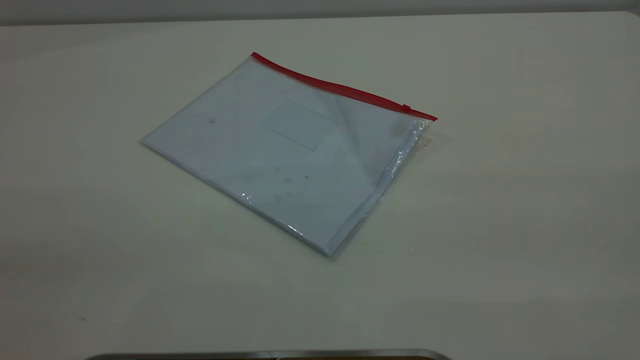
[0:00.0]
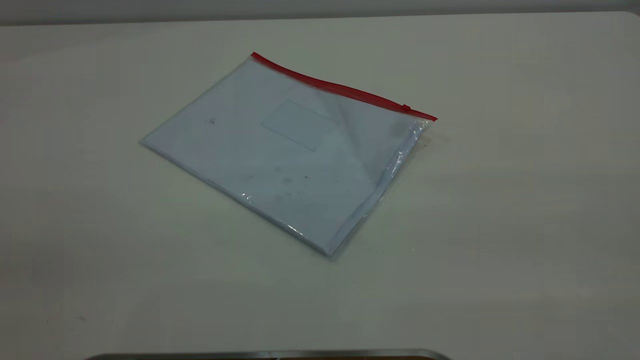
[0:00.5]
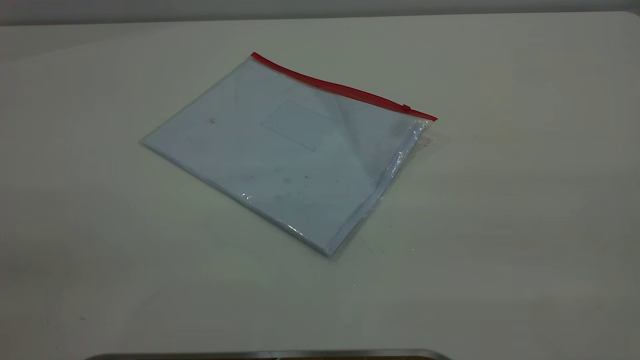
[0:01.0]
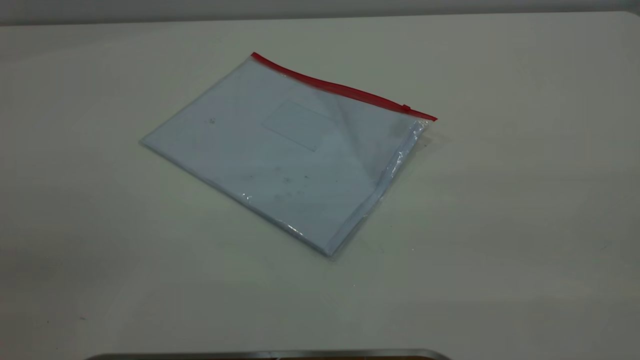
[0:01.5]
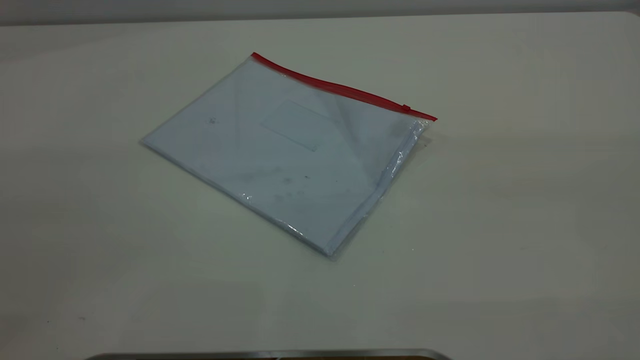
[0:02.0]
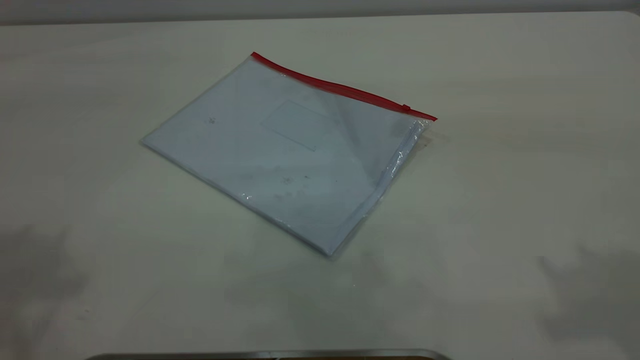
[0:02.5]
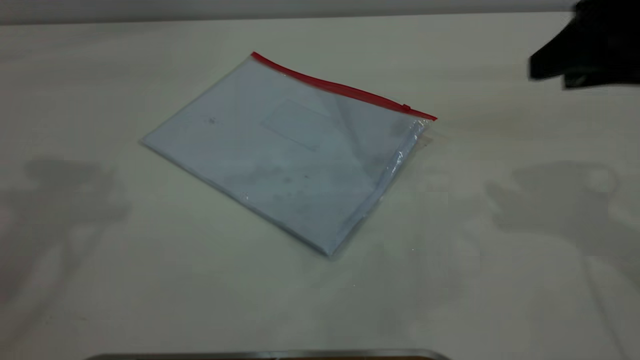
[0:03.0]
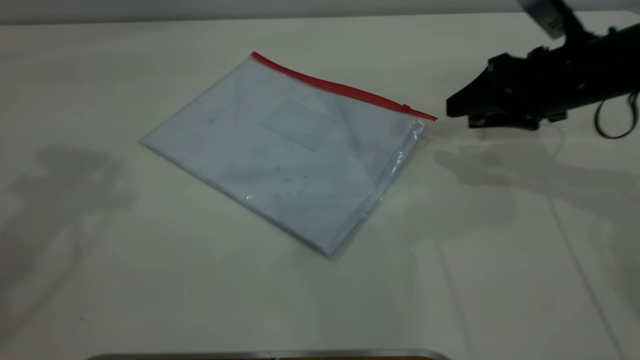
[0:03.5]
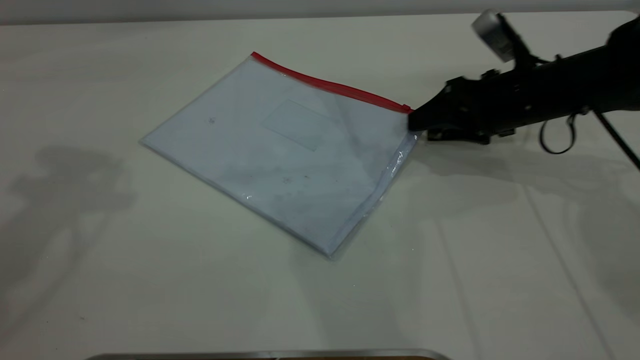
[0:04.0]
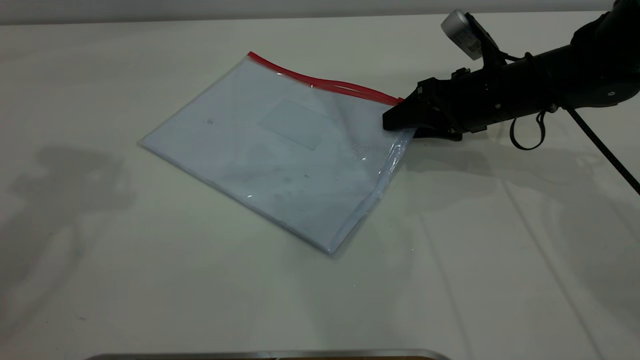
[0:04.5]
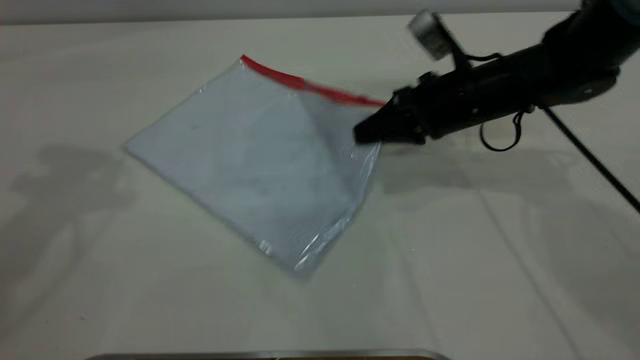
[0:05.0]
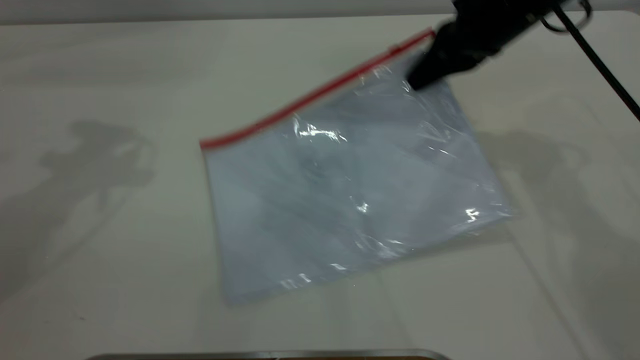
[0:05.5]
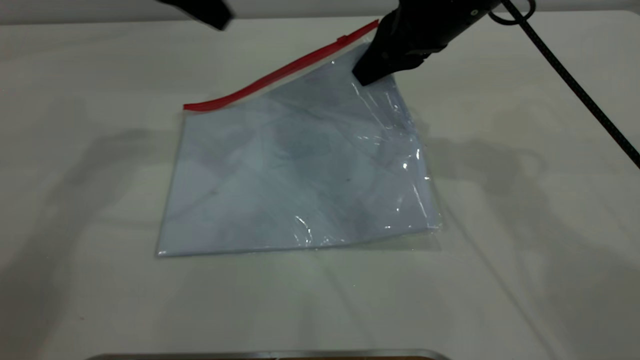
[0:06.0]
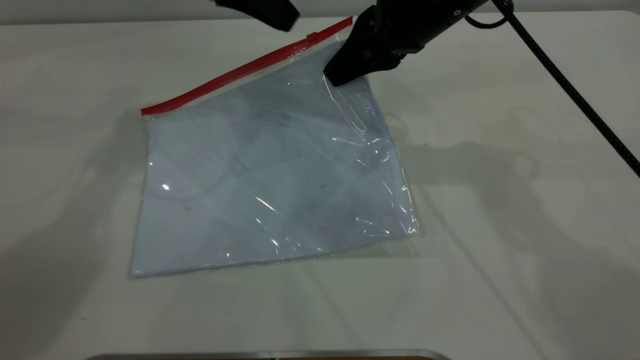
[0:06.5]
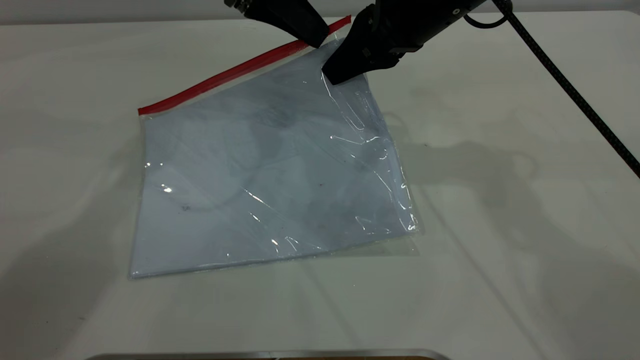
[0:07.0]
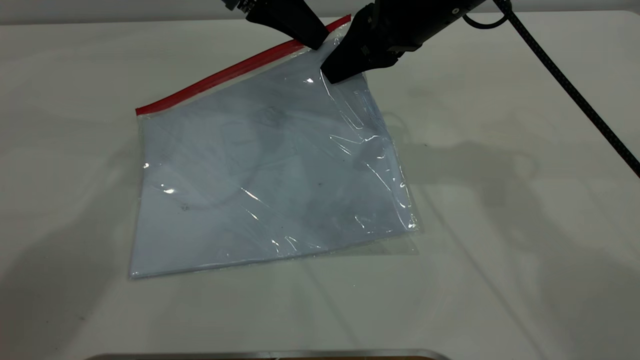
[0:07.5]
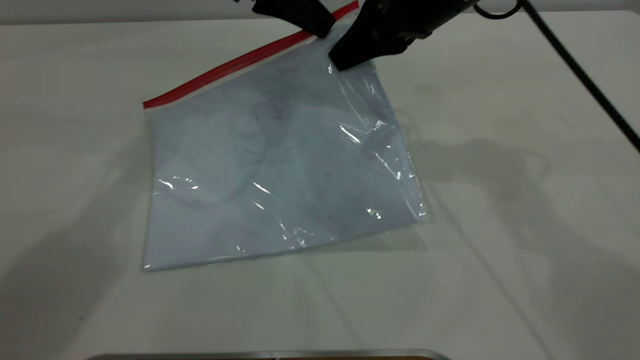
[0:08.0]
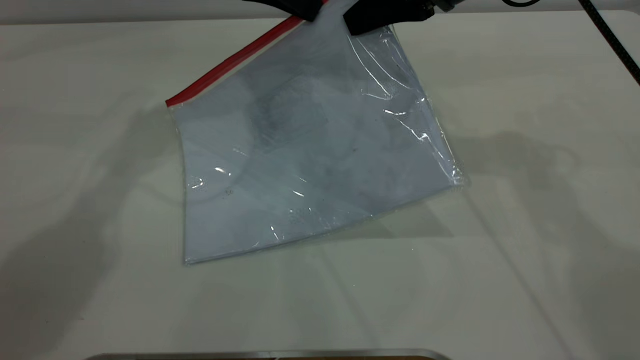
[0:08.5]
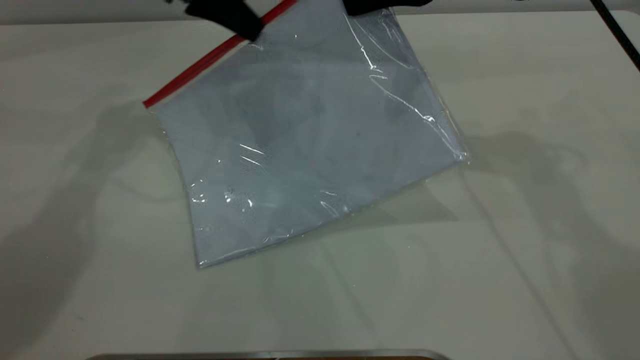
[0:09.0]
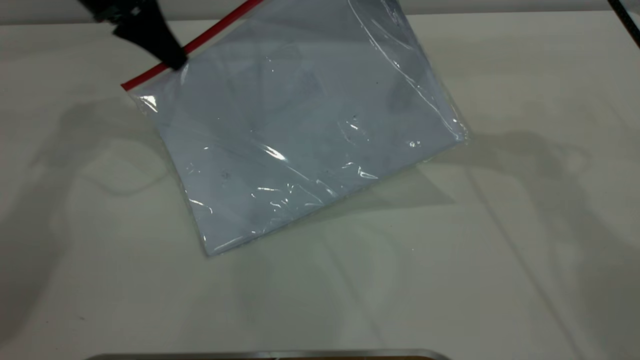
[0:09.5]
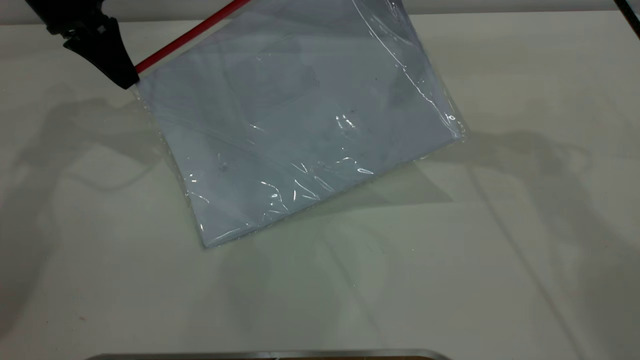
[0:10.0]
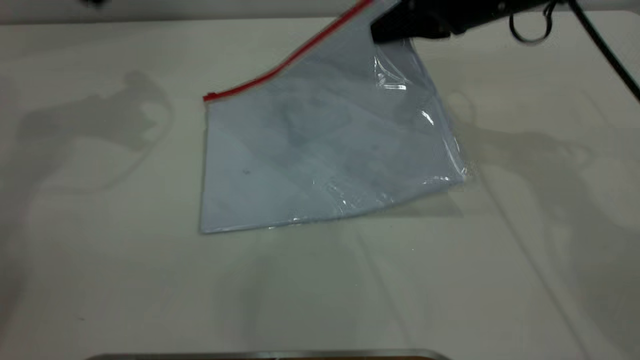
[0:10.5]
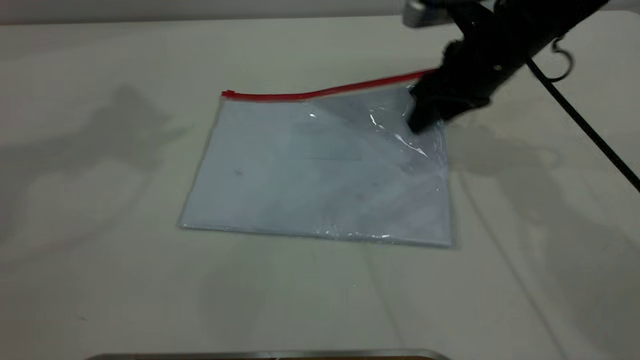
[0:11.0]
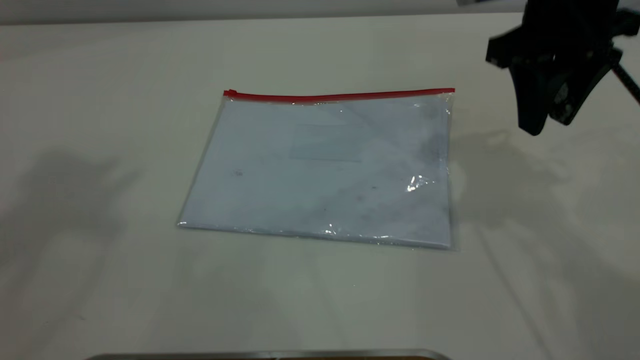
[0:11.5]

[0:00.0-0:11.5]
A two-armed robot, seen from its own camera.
Step, 0:00.0 to 0:05.5: Pick up the transparent plastic bag with the right gripper.
Step, 0:06.0 to 0:10.0: Pulling up the zipper on the transparent plastic bag with the left gripper to close it.
0:02.0 to 0:04.0: The right gripper is displaced forward and downward by approximately 50 cm.
0:04.0 to 0:06.0: The left gripper goes about 20 cm downward, forward and to the right; the right gripper shifts about 15 cm upward and to the left, and closes.
0:06.0 to 0:07.5: The left gripper travels to the right by about 5 cm, and closes its fingers.
0:07.5 to 0:09.5: The left gripper shifts roughly 15 cm to the left. Meanwhile the right gripper ends up roughly 5 cm from where it was.
0:09.5 to 0:11.5: The left gripper shifts about 40 cm upward and backward, and opens. The right gripper heads backward, covering about 5 cm, travels downward and back again, some 10 cm each way, and opens.

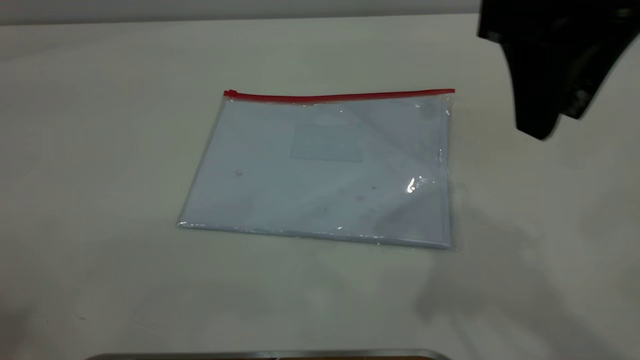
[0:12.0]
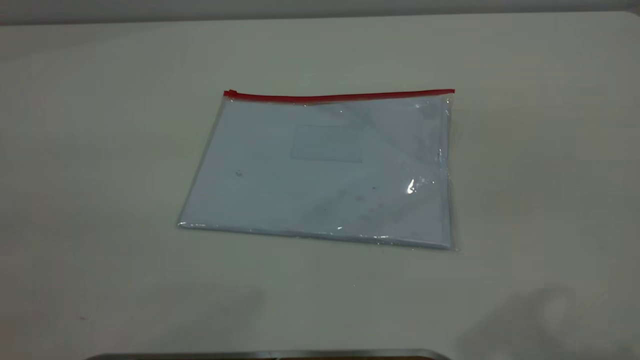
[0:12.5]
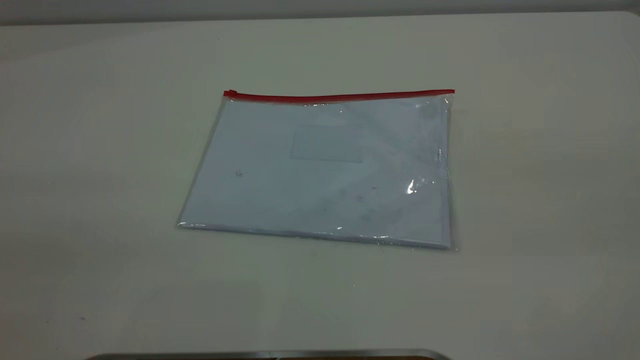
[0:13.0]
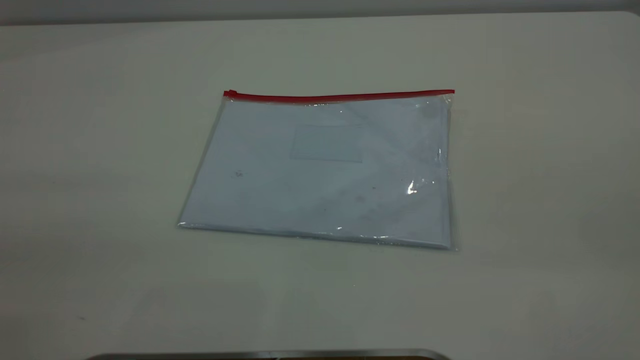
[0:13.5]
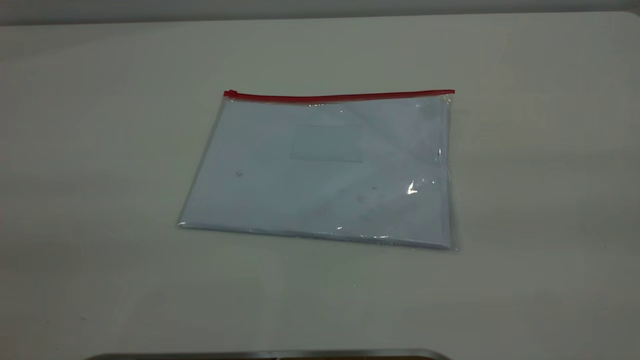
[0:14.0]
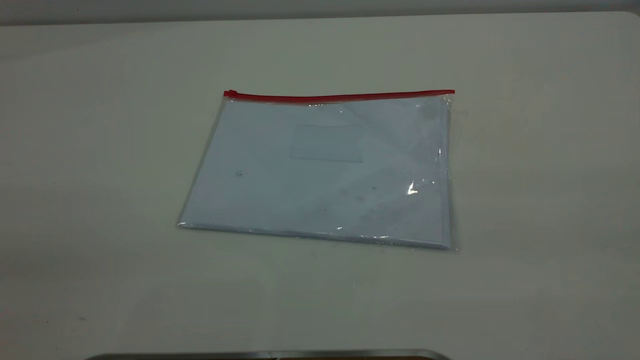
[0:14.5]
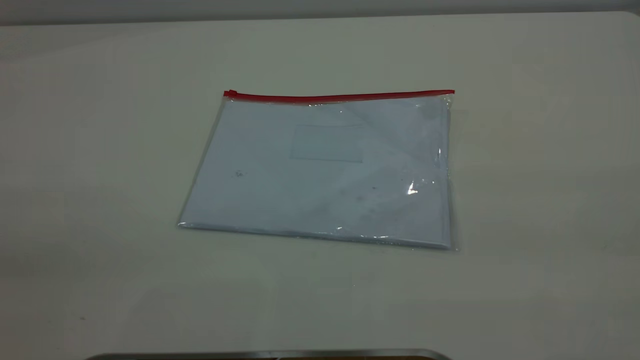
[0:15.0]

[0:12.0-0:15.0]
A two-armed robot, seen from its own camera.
0:12.0 to 0:13.5: The right gripper moves backward and to the right, some 25 cm.

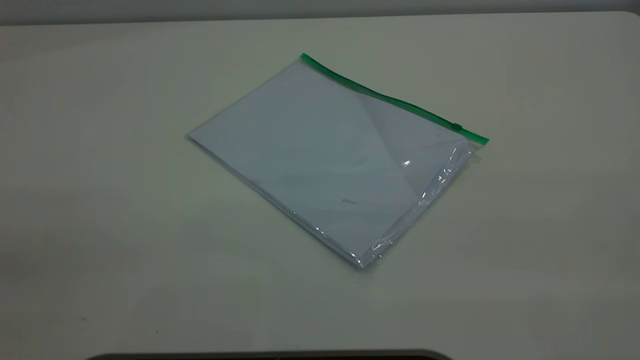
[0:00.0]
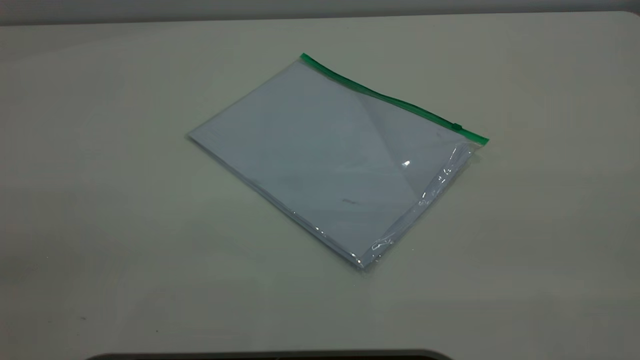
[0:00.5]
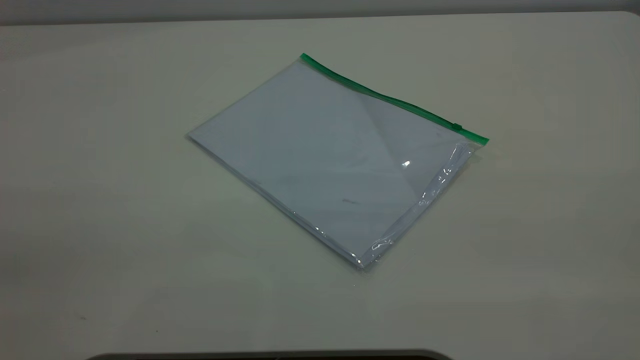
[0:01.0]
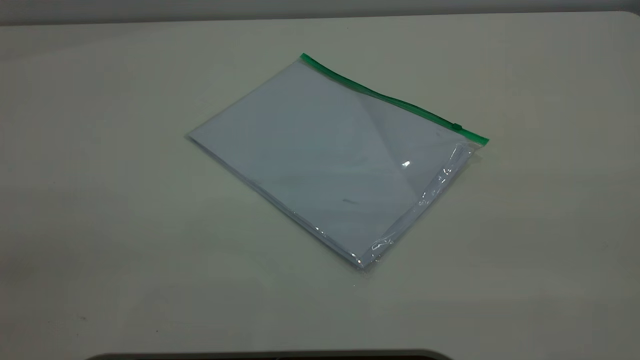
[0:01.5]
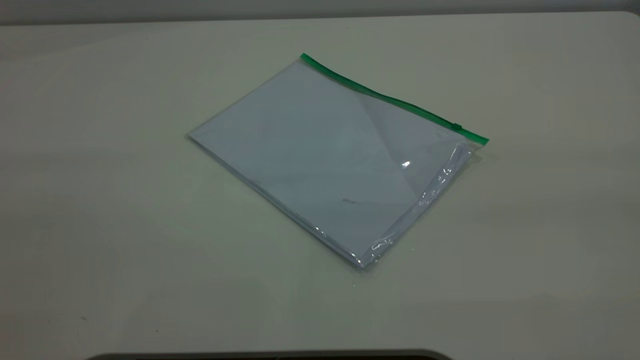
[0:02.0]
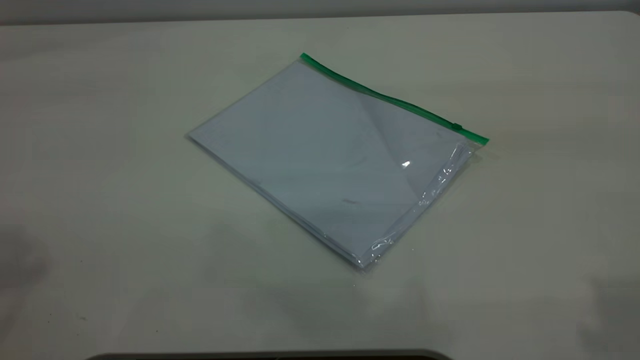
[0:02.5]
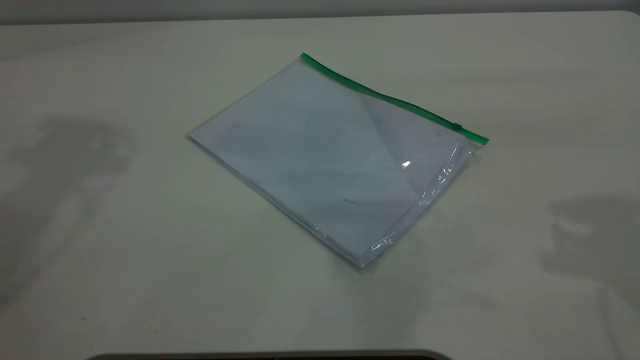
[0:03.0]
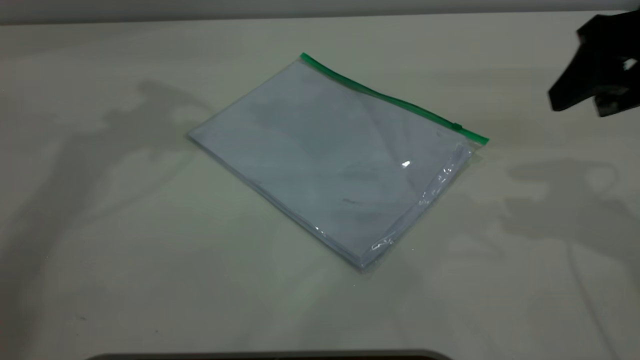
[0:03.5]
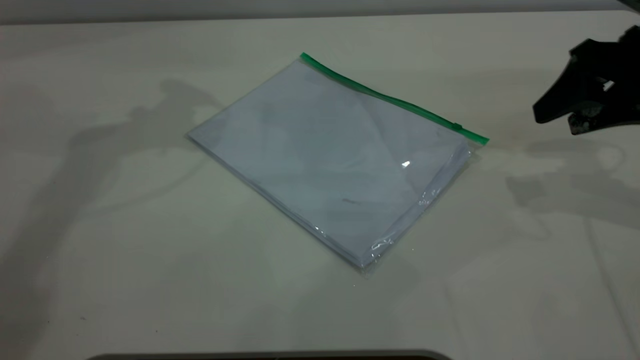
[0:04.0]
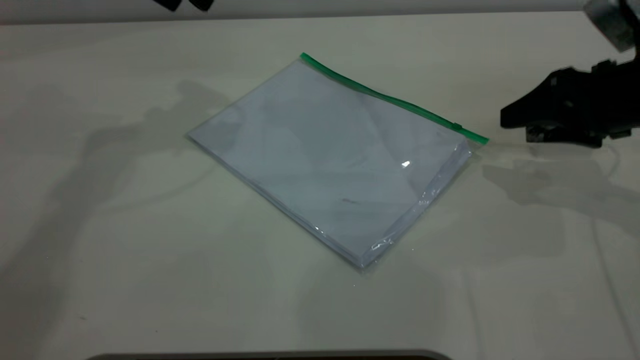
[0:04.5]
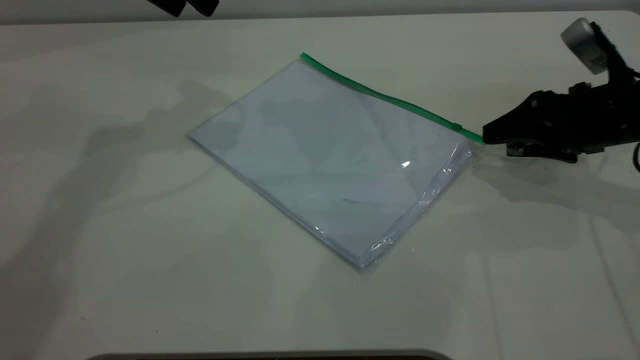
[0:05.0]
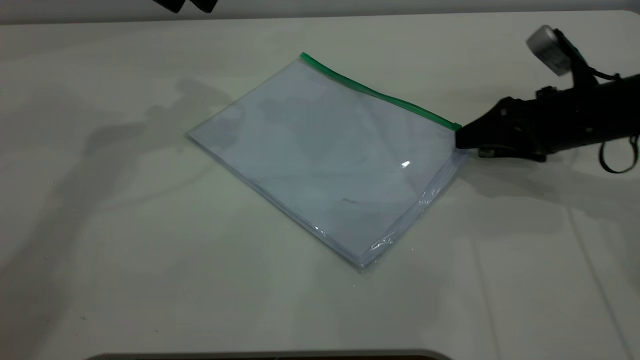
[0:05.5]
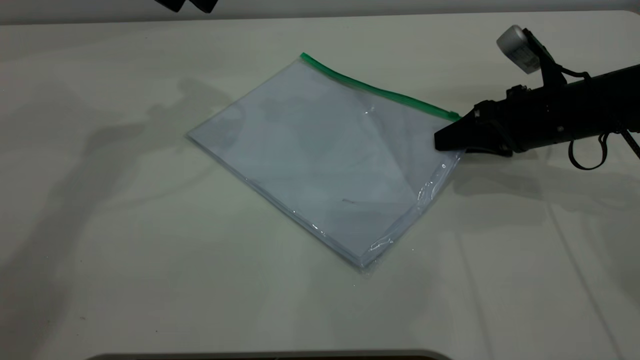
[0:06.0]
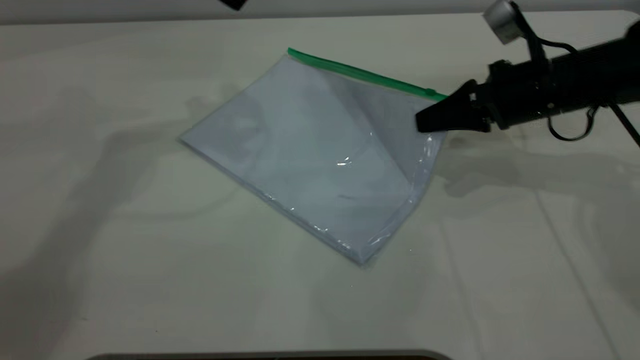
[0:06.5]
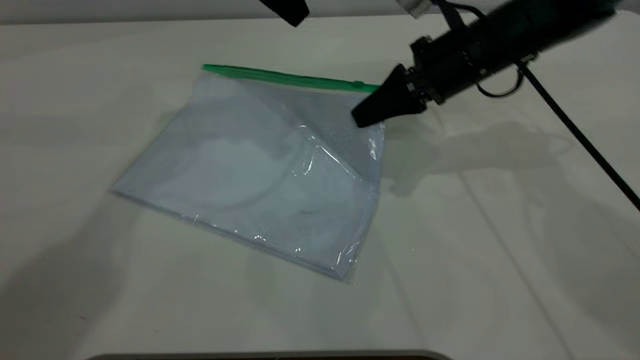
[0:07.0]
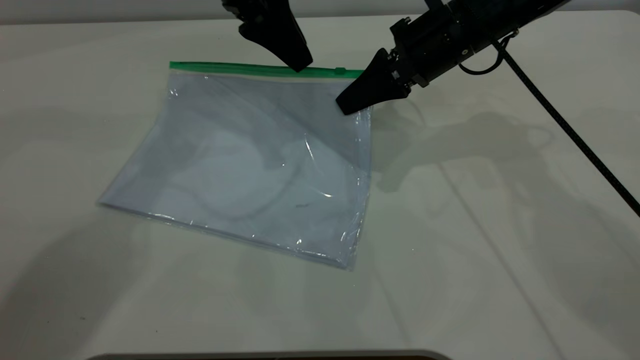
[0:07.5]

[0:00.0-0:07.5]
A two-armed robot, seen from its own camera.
Step, 0:00.0 to 0:06.0: Pick up the transparent plastic bag with the right gripper.
0:02.0 to 0:04.0: The right gripper moves forward and downward, roughly 40 cm.
0:04.0 to 0:05.5: The right gripper travels downward by approximately 10 cm.
0:05.5 to 0:07.5: The right gripper heads to the left, forward and upward, covering some 15 cm, and closes its fingers, while the left gripper moves to the right and downward, roughly 10 cm.
